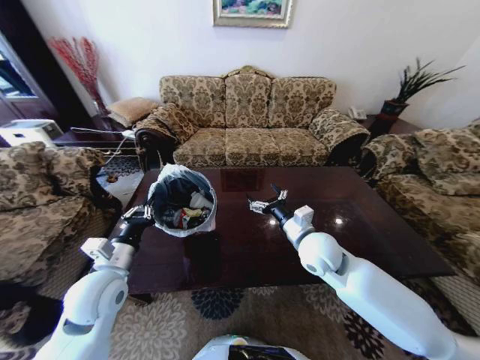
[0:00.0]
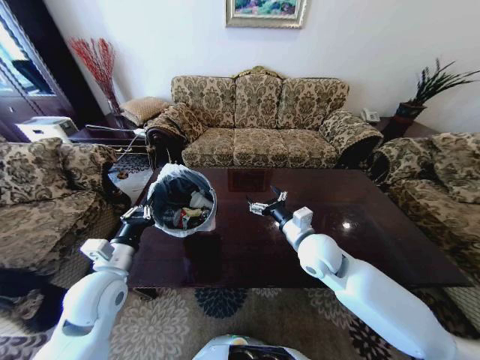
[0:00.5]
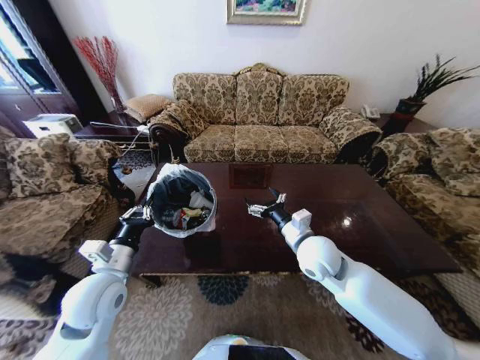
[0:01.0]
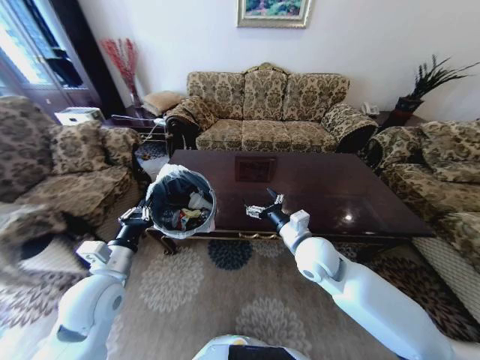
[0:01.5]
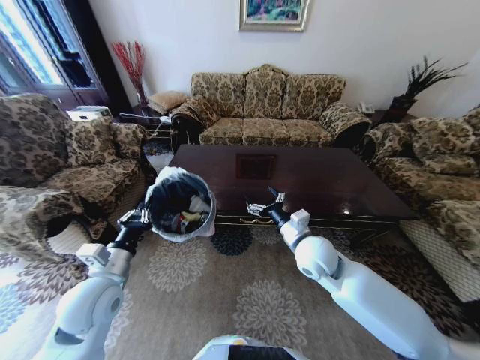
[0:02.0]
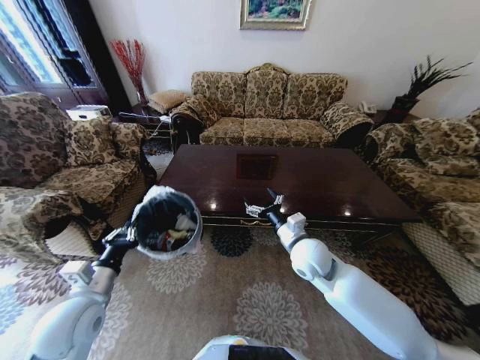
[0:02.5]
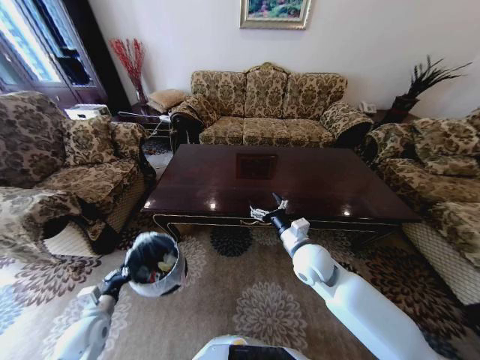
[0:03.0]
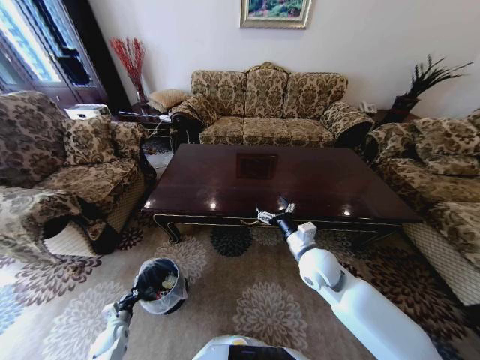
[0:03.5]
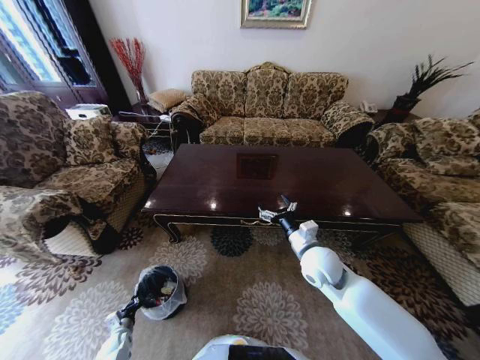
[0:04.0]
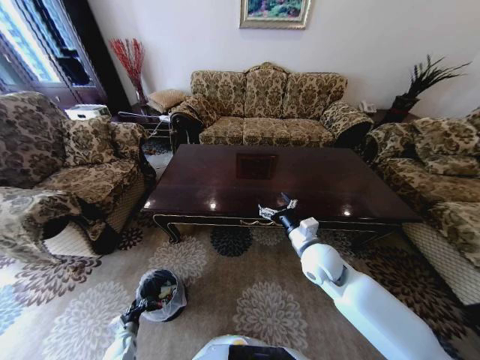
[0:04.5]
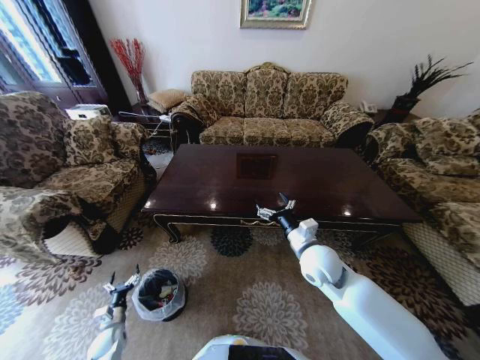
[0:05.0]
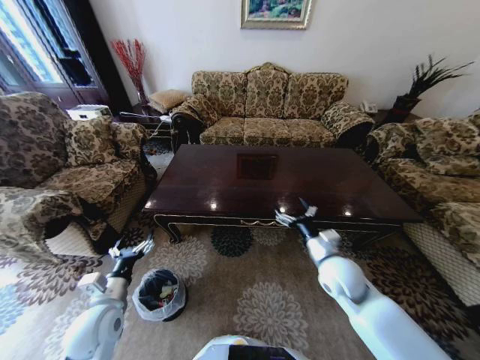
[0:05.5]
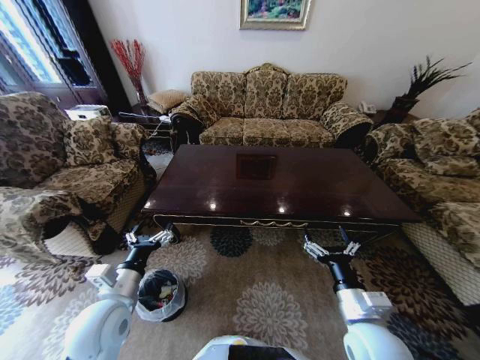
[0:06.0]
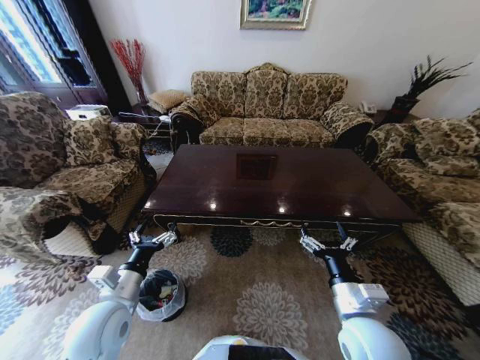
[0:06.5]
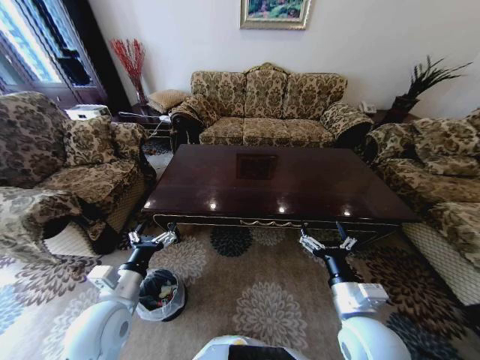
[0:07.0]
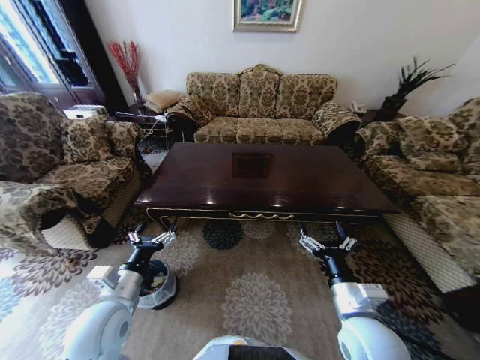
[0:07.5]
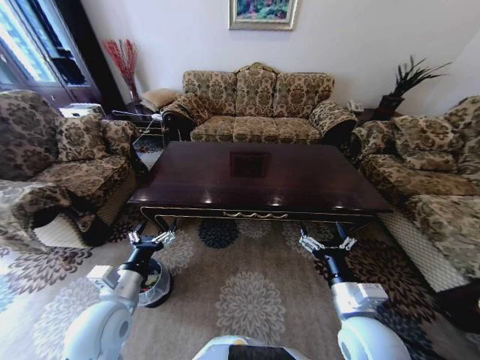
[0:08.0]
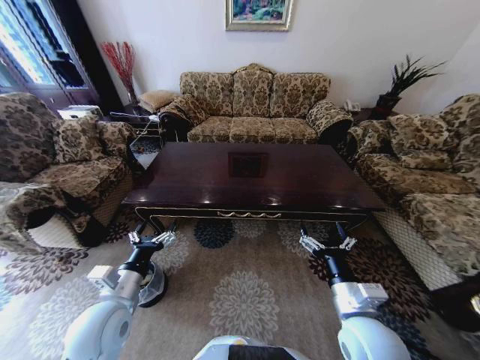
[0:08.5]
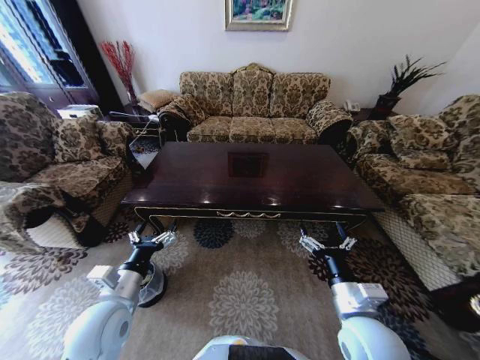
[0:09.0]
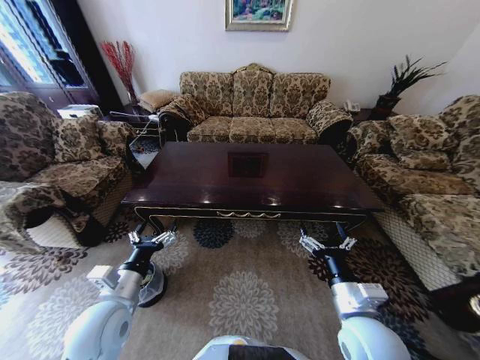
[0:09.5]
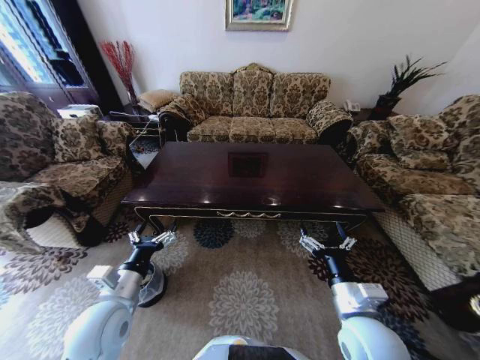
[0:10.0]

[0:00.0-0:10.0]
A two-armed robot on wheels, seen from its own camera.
Task of the whole recording: Move to the front of the table and place the trash on the table into the trash bin.
0:02.0 to 0:04.0: The left gripper travels downward by about 40 cm.
0:04.0 to 0:06.0: The right gripper travels backward by about 15 cm. The left gripper travels upward and to the right by approximately 40 cm, and opens its fingers.
0:08.0 to 0:10.0: The two grippers keep their place.
